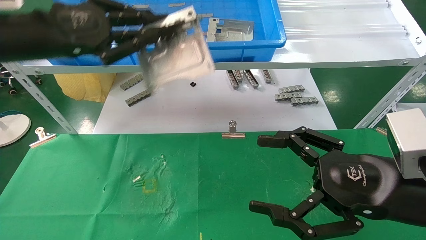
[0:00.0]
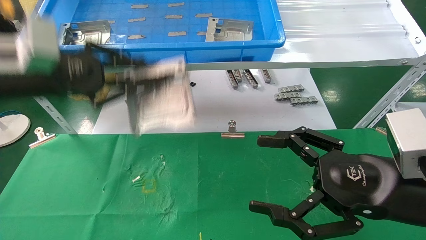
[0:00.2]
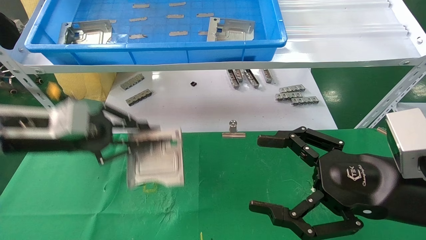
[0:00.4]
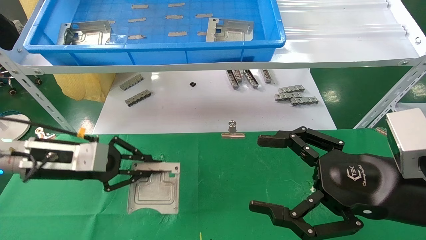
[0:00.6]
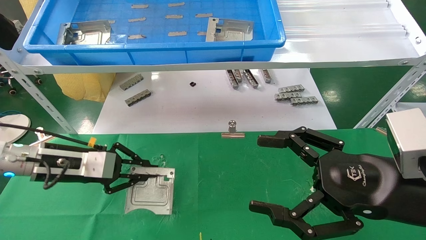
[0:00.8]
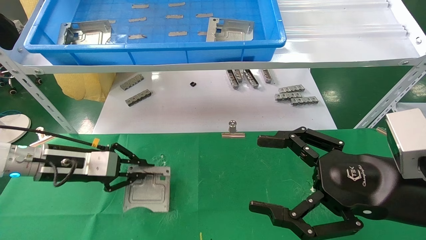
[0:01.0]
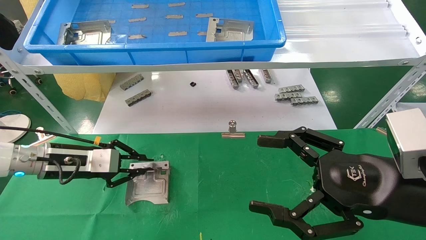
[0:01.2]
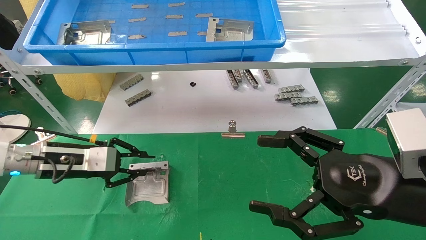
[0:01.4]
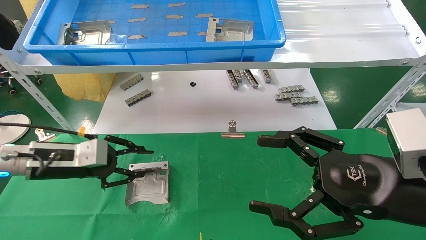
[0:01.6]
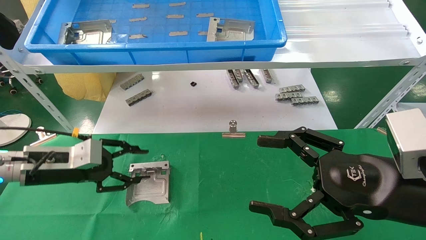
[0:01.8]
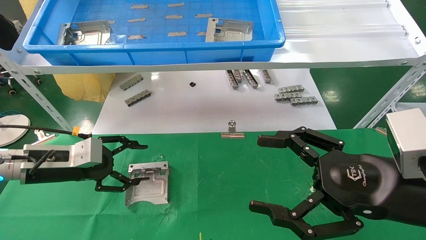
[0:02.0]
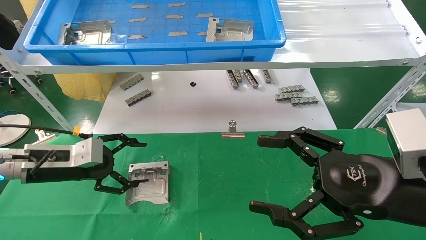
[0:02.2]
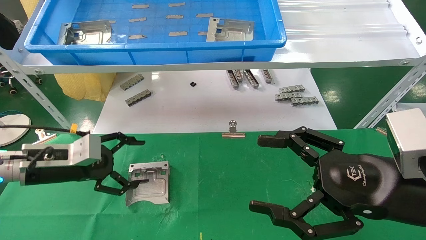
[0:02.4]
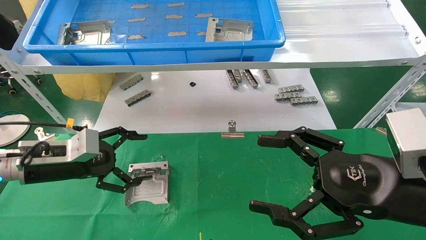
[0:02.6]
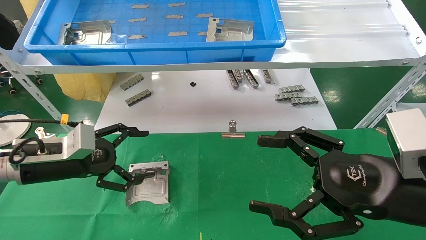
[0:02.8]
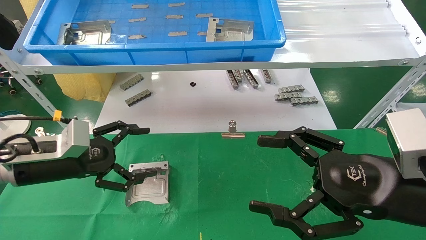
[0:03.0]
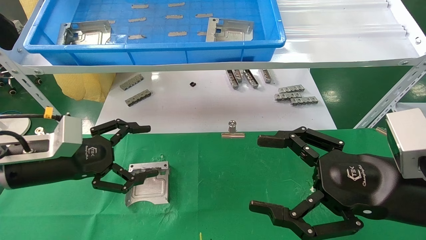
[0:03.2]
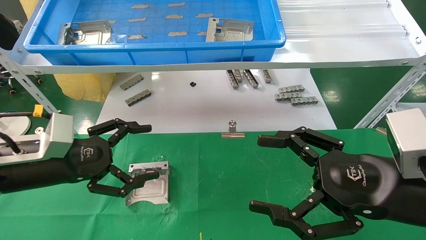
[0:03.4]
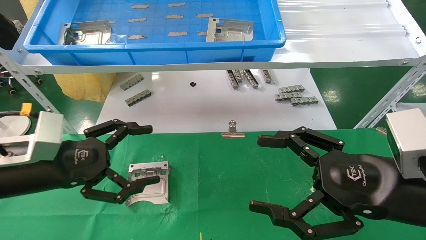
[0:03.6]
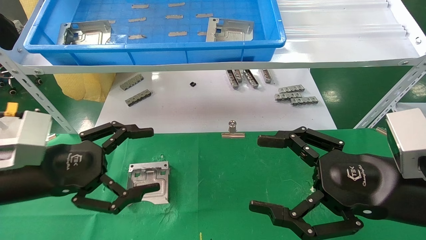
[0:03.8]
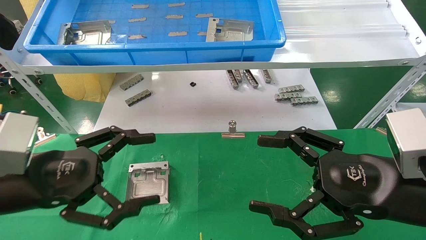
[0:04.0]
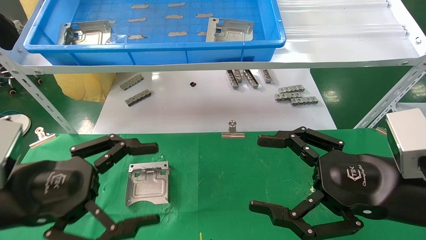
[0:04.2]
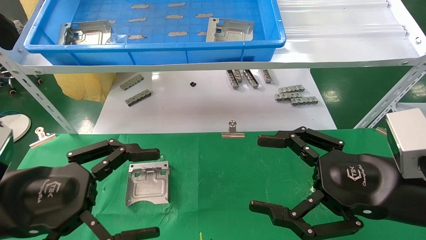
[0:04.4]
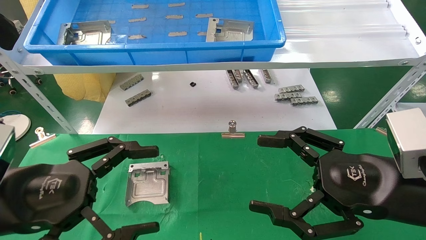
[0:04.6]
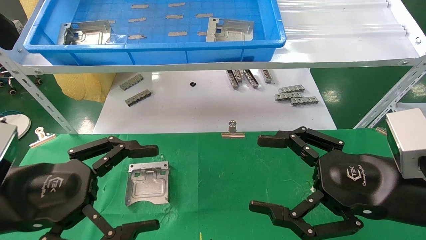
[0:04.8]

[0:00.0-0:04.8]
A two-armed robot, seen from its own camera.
Task of the whole recording: use the mechanical arm to pick up the parts and place them on the table.
Step, 0:00.0 to 0:01.8: Place the hard drive bracket into the box.
0:00.0 to 0:01.6: The left gripper shifts approximately 20 cm downward.
0:01.6 to 0:03.2: The left gripper travels backward by approximately 5 cm, and opens its fingers.
0:03.2 to 0:04.8: The left gripper moves backward, approximately 10 cm.

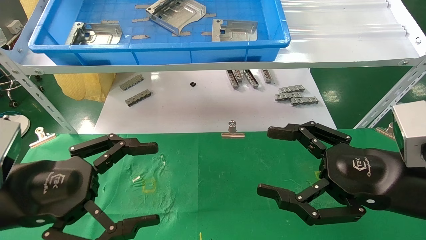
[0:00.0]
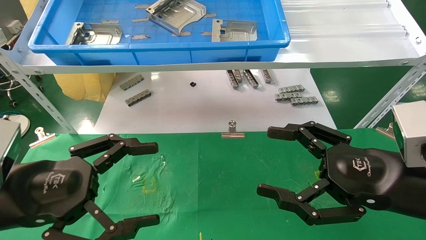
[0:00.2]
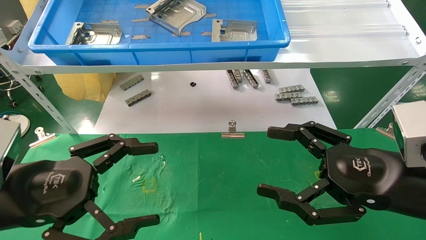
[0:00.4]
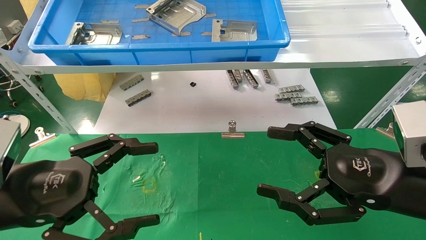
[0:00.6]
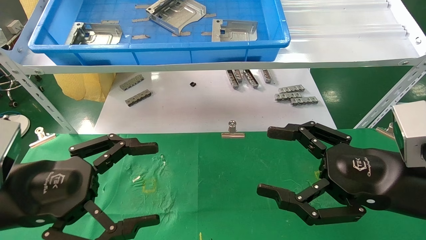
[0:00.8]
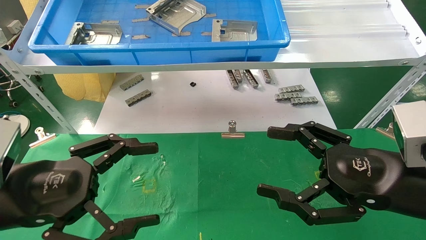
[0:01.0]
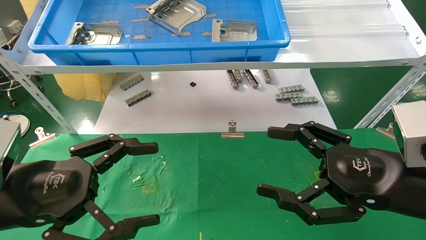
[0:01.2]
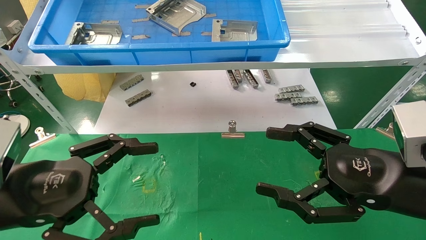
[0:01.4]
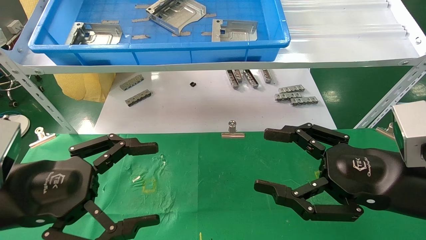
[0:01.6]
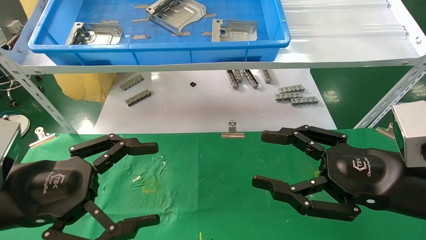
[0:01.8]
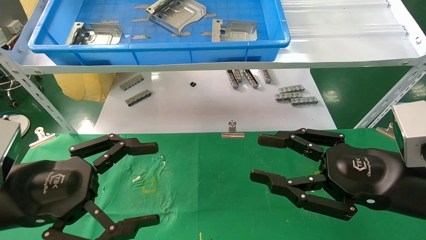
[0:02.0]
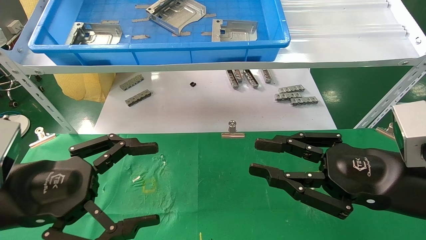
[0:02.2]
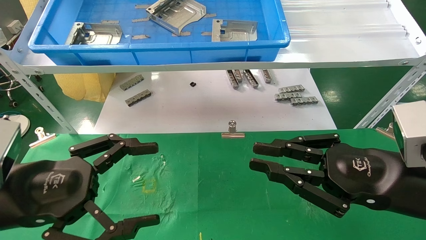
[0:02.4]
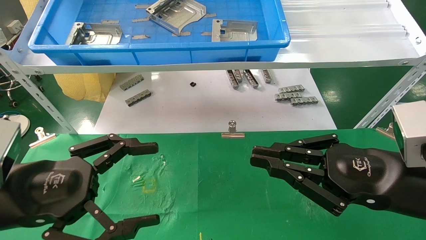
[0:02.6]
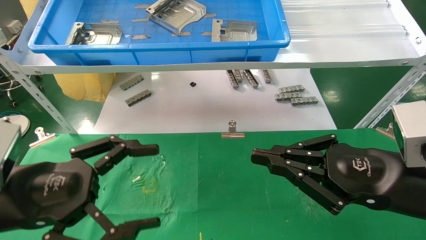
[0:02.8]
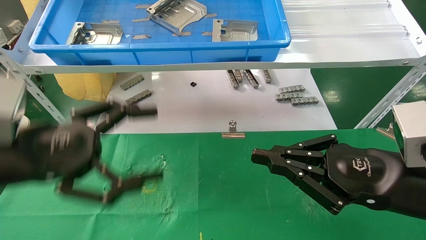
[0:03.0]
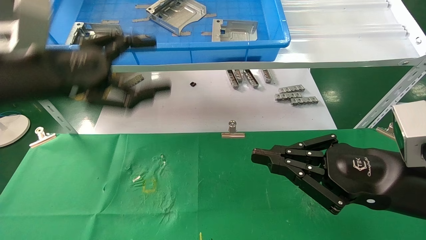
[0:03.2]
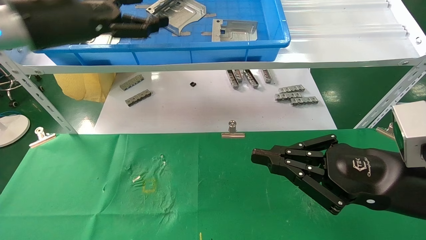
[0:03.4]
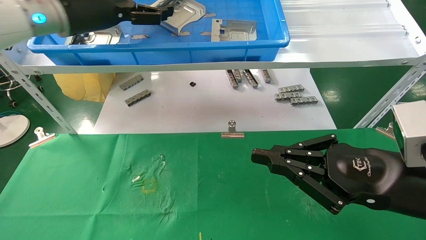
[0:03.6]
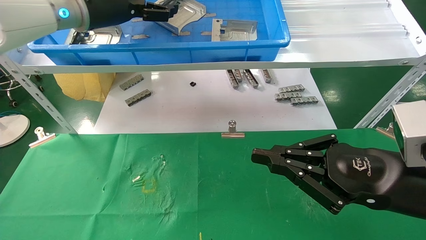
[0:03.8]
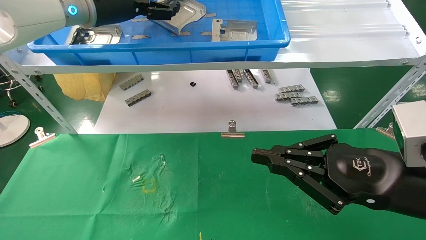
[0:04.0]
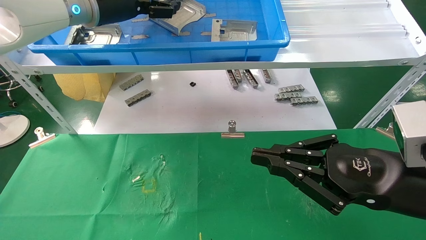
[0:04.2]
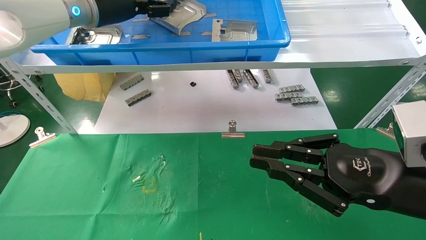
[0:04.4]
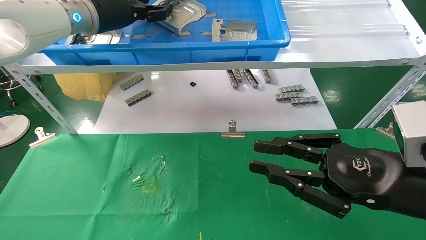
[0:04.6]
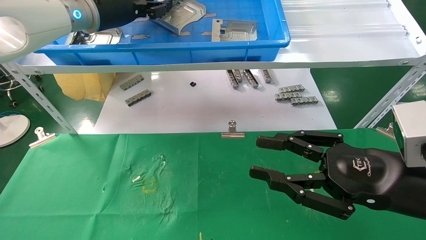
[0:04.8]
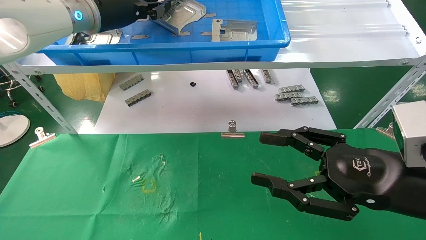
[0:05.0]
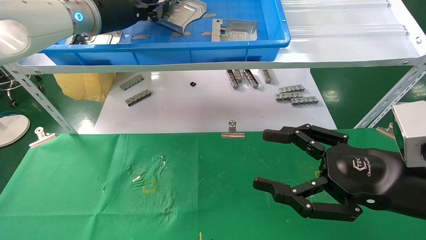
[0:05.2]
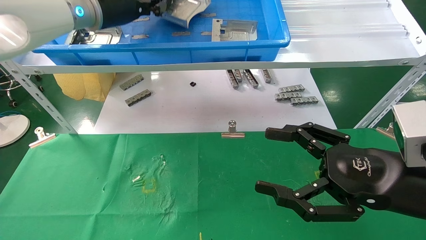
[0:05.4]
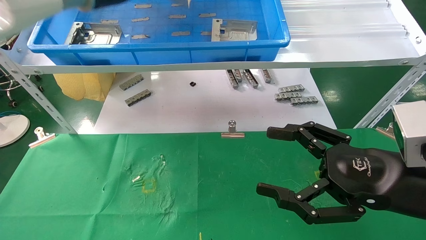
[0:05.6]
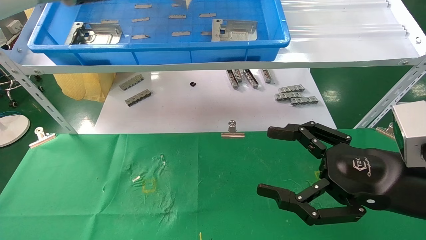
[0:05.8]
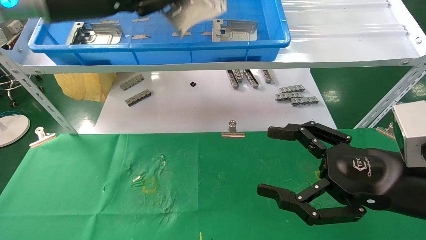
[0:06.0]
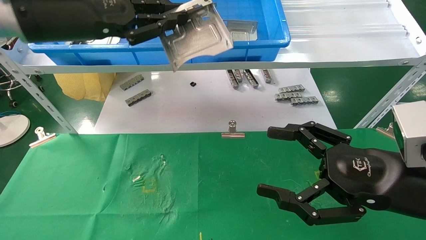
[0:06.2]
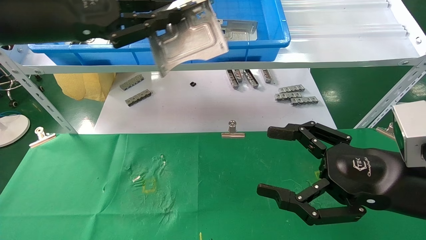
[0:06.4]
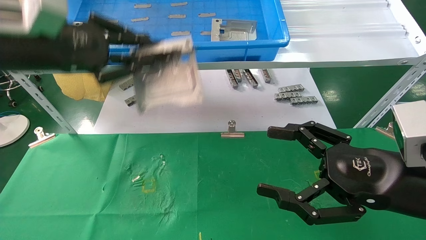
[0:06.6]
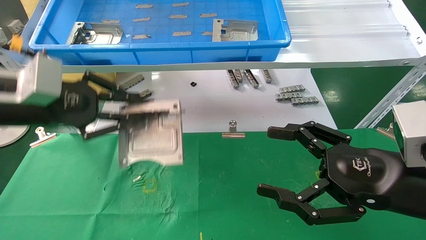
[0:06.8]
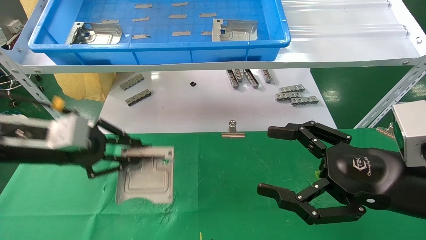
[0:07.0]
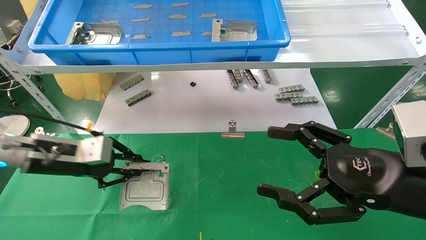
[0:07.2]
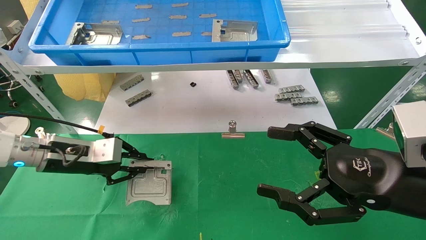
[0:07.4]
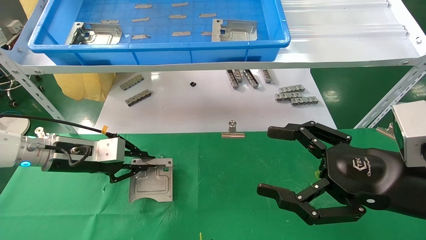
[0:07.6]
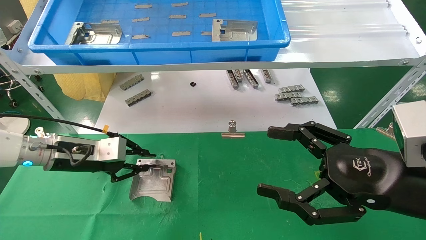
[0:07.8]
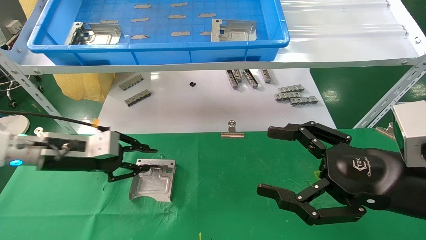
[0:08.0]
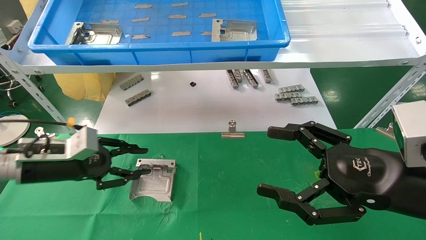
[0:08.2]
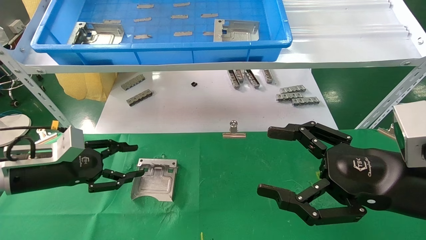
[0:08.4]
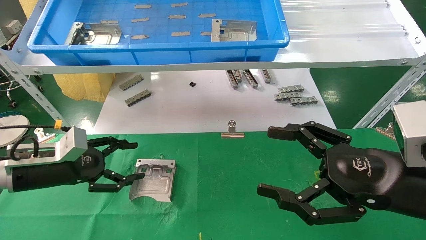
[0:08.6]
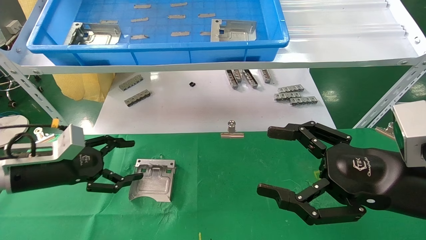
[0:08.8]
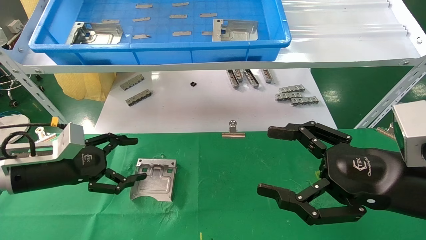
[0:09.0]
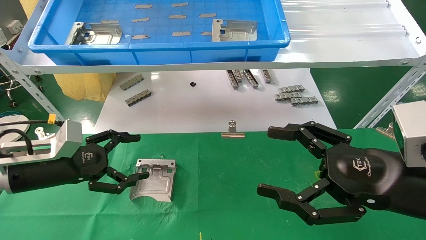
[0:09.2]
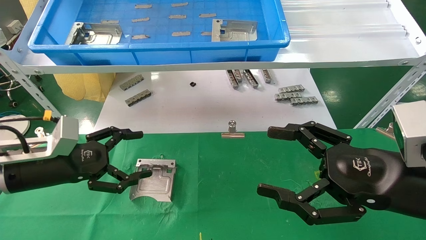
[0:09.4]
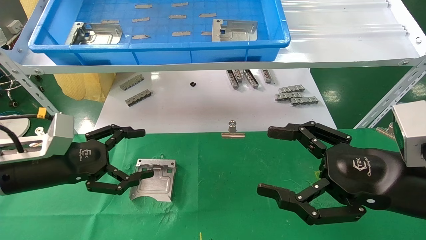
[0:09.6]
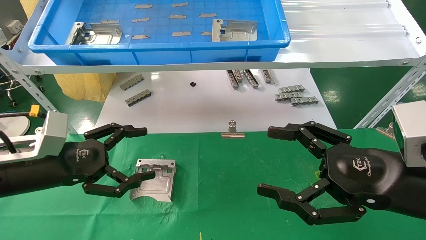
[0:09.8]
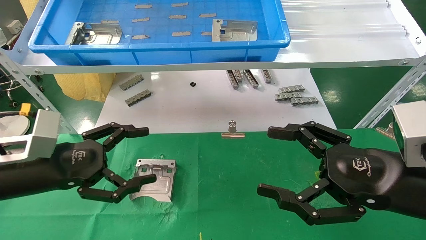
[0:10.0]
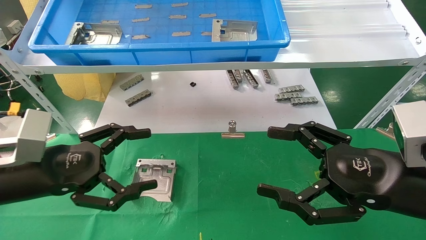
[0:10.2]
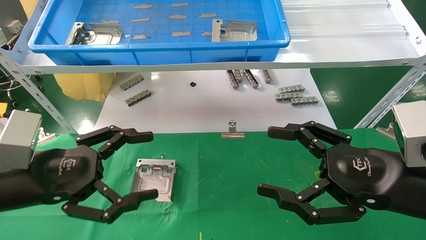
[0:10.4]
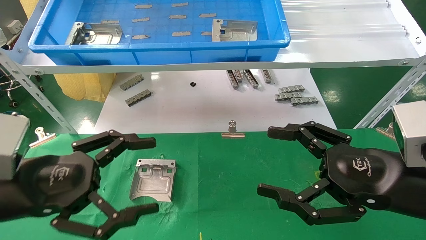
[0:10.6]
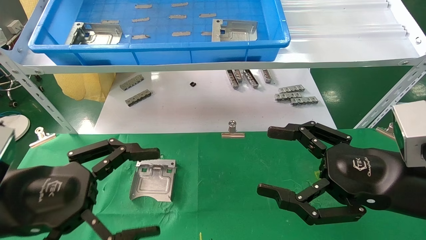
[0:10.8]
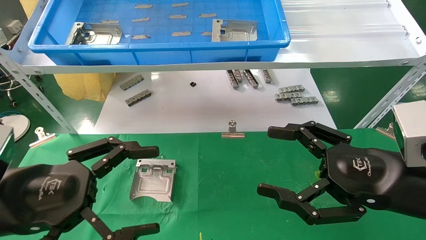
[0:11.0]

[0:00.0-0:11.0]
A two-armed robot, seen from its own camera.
Task of the whole recording: use the mechanical arm to pick up the parts and place them on the table.
Step, 0:03.0 to 0:05.2: Pick up the hard drive bracket from the feeding area.
Step, 0:05.4 to 0:08.2: Place the hard drive bracket into the box.
0:00.0 to 0:01.6: Neither gripper changes place.
0:01.6 to 0:03.2: The left gripper heads upward and forward, covering approximately 15 cm. Meanwhile the right gripper closes up.
0:03.2 to 0:04.8: The left gripper shifts about 20 cm forward, upward and to the right, and closes.
0:04.8 to 0:06.2: The left gripper is displaced backward by roughly 10 cm, and closes its fingers. The right gripper opens up.
0:06.2 to 0:07.8: The left gripper heads downward, covering roughly 25 cm.
0:07.8 to 0:09.4: The left gripper travels backward by roughly 5 cm, and opens up.
0:09.4 to 0:11.0: The left gripper is displaced backward by approximately 15 cm.
